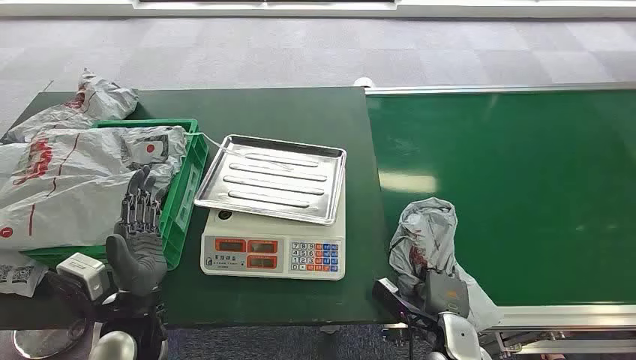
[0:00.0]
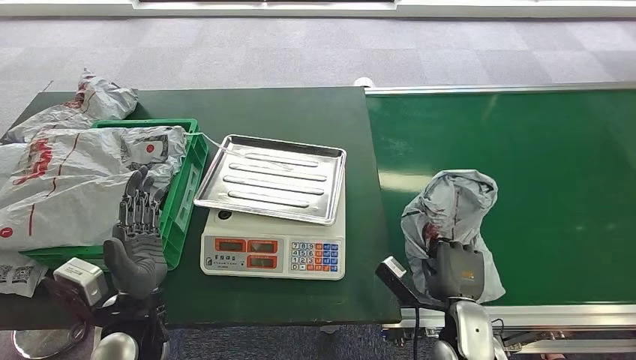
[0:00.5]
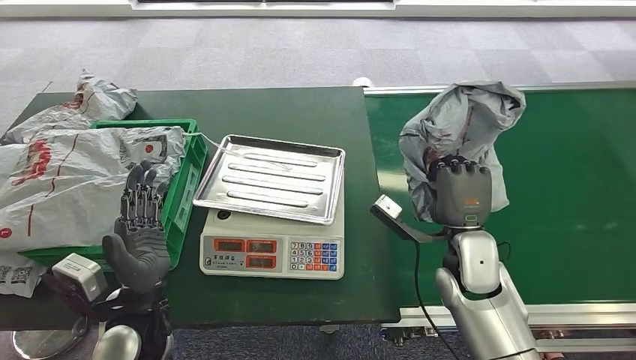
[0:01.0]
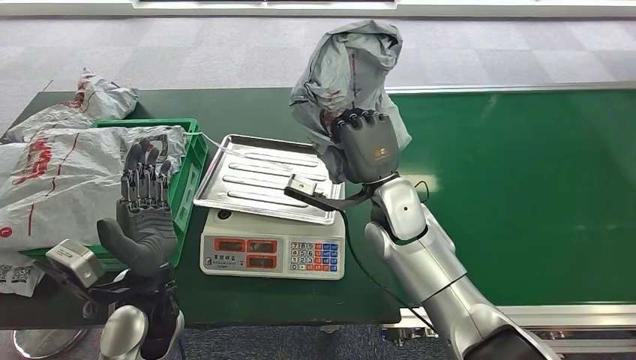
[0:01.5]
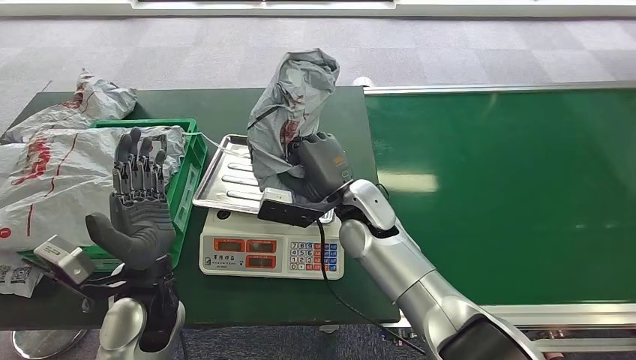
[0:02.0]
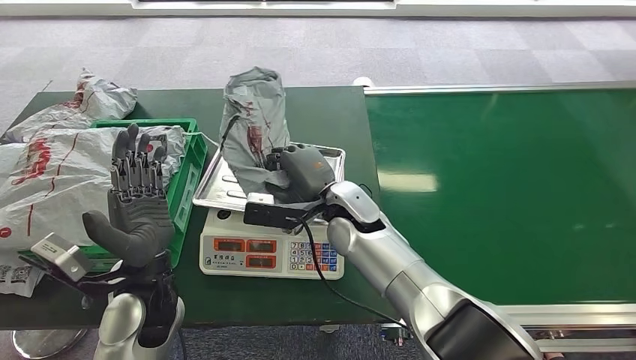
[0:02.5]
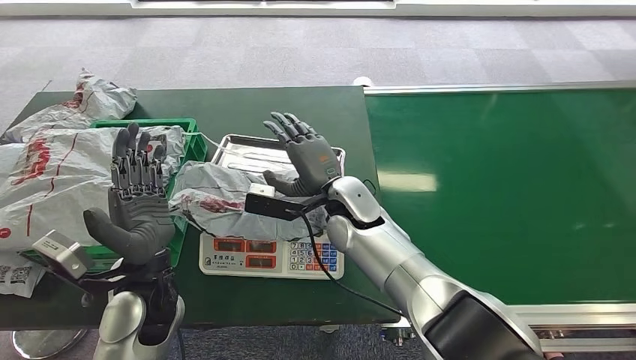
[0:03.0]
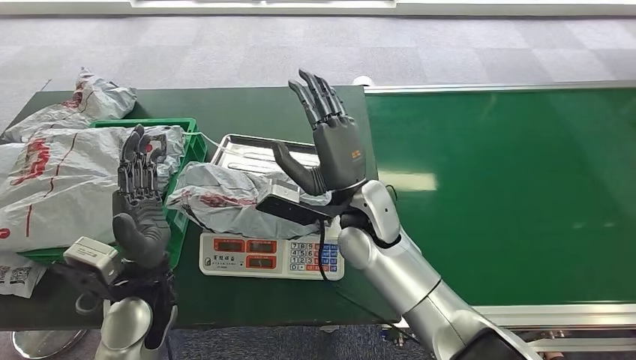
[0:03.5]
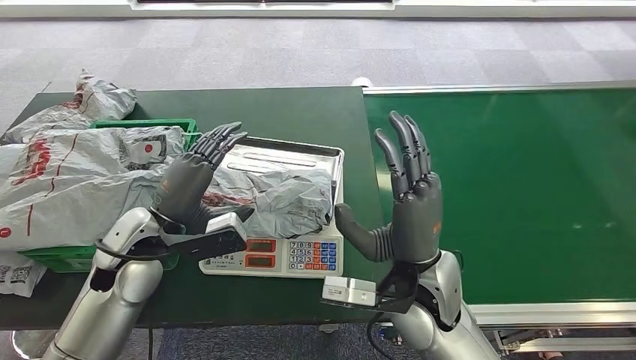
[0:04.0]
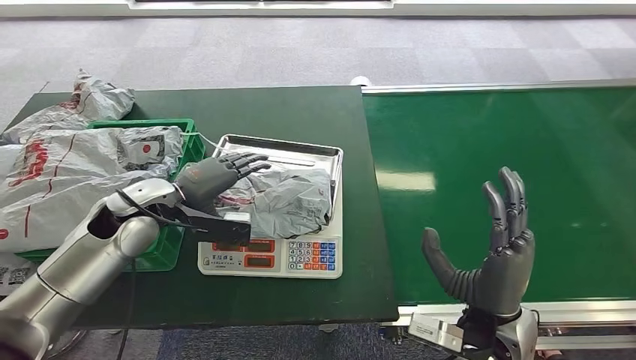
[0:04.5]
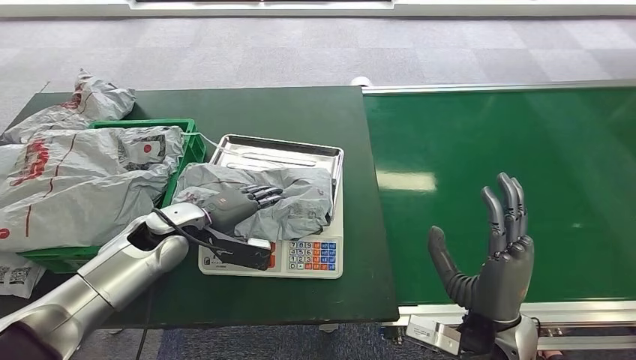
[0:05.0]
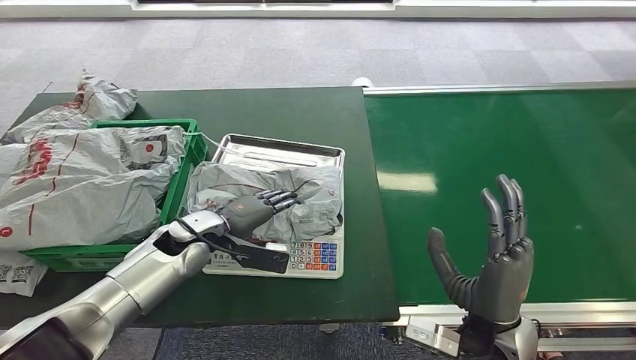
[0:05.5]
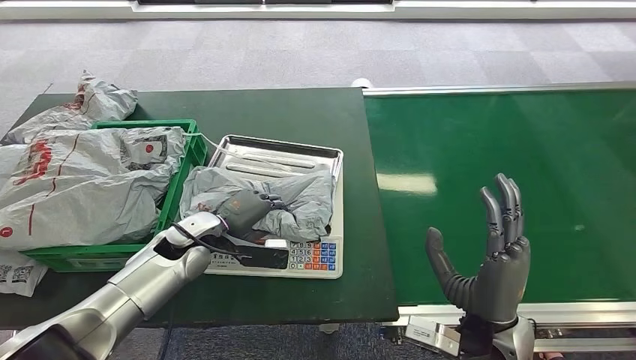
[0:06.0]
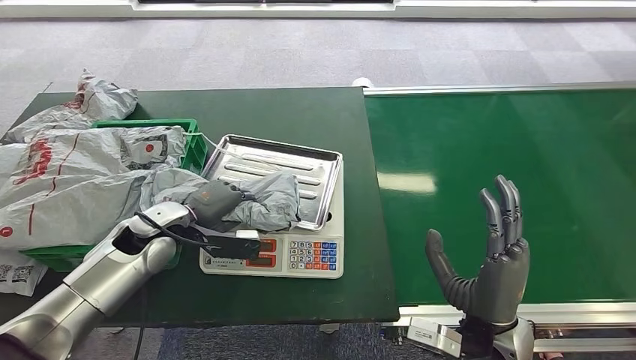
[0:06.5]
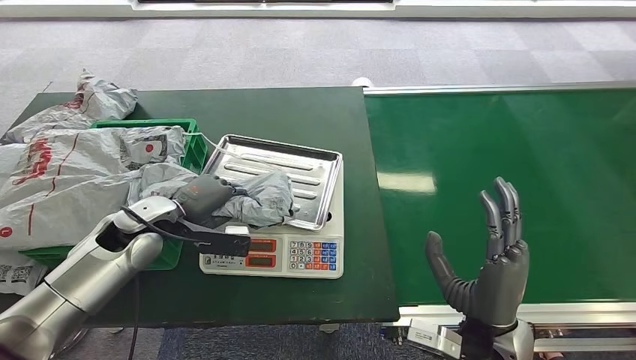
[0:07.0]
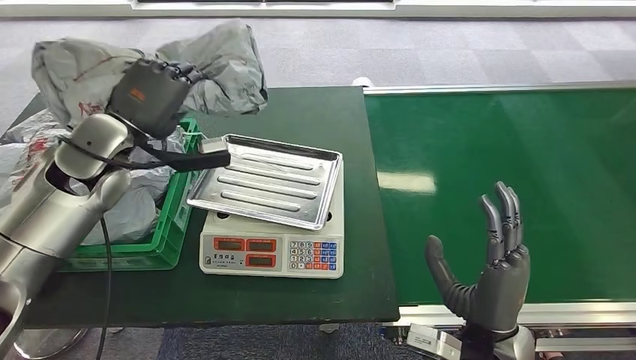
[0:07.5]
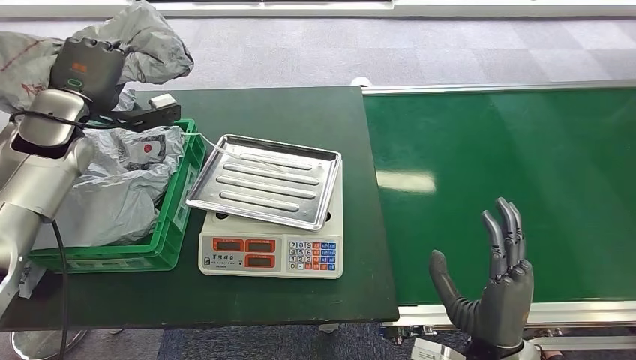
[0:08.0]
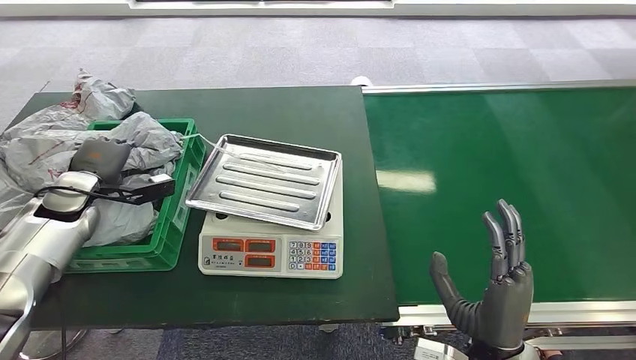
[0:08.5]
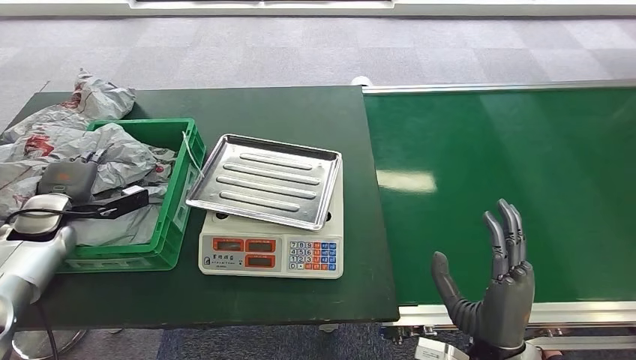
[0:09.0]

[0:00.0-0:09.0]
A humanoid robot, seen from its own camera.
Task of the whole recording: Weigh the package on the weighing device and place it in the left basket.
Step, 0:00.0 to 0:01.0: Pick up the package from the conveyor belt.
Step, 0:01.5 to 0:04.0: Place the package onto the inbound machine.
Step, 0:04.5 to 0:07.5: Pick up the package from the inbound machine.
Step, 0:08.0 to 0:09.0: Place the package into the parcel locker.
